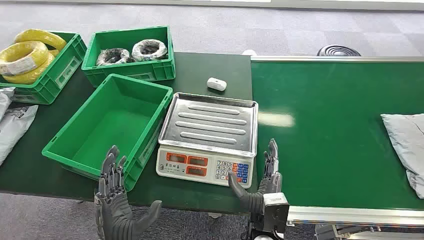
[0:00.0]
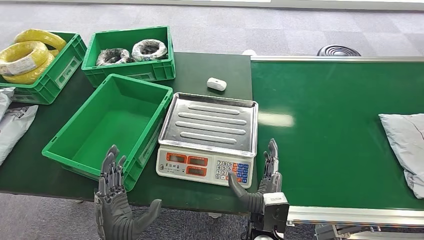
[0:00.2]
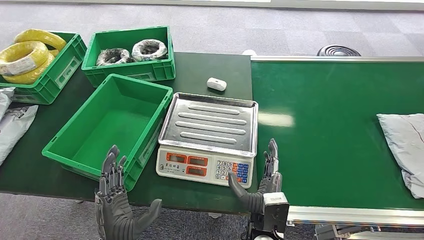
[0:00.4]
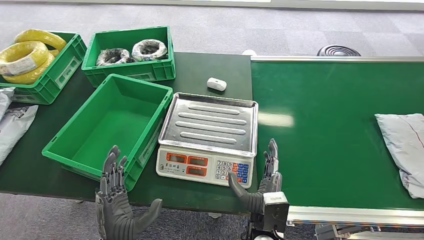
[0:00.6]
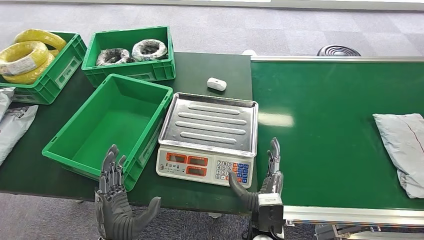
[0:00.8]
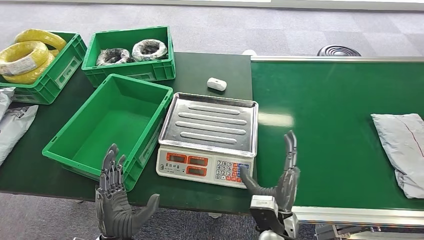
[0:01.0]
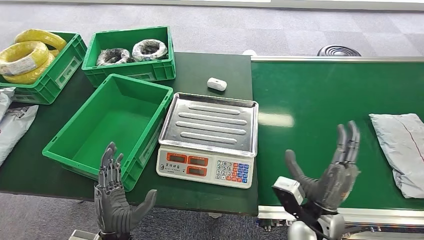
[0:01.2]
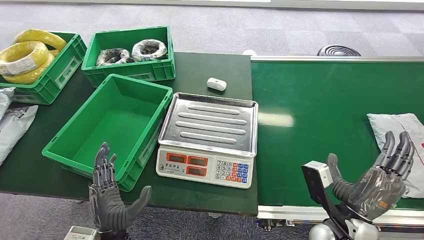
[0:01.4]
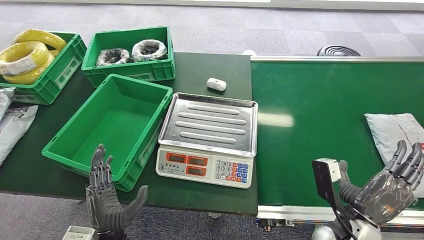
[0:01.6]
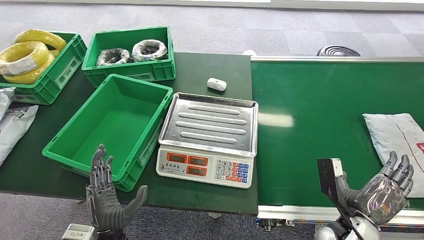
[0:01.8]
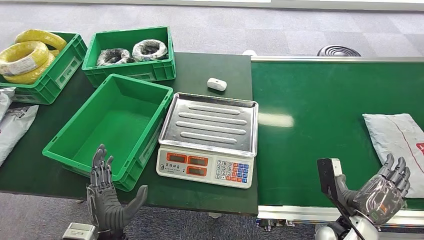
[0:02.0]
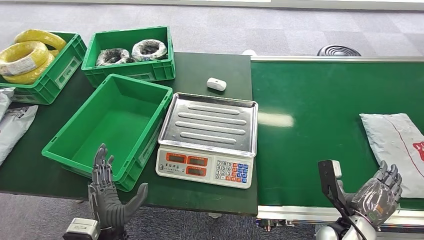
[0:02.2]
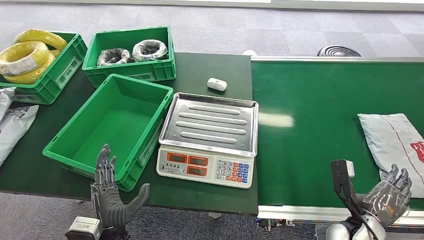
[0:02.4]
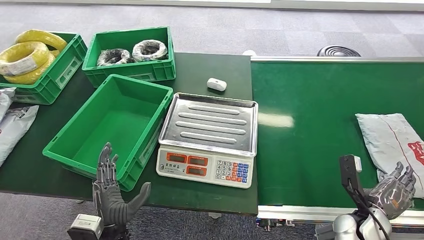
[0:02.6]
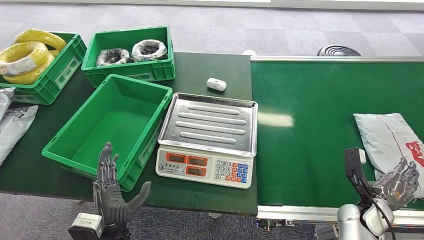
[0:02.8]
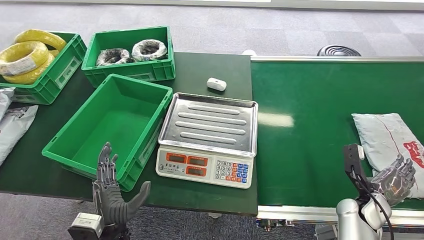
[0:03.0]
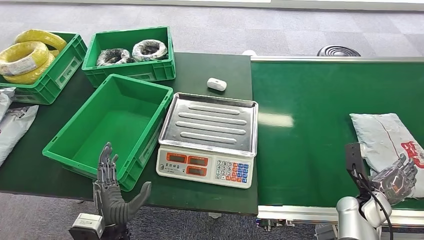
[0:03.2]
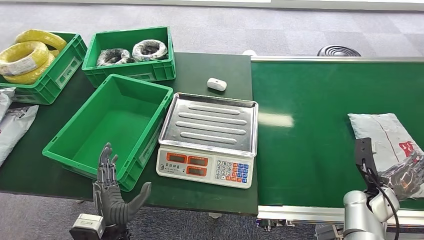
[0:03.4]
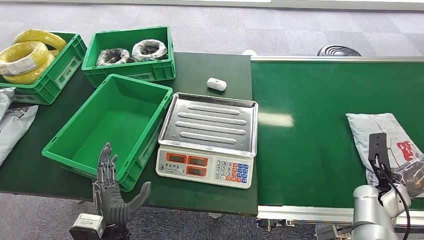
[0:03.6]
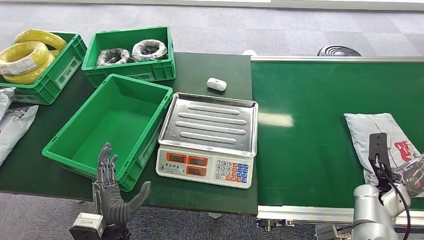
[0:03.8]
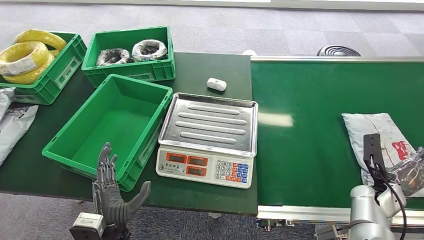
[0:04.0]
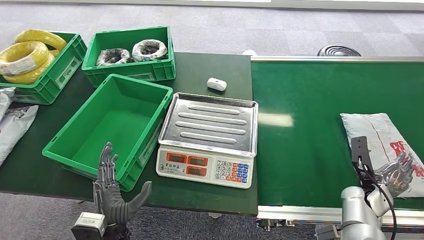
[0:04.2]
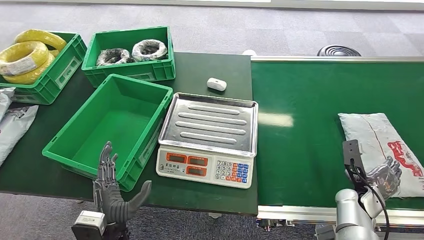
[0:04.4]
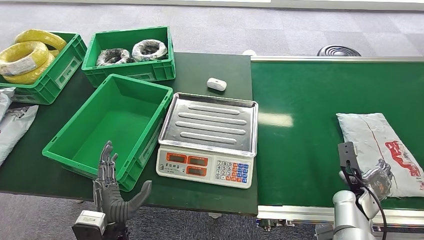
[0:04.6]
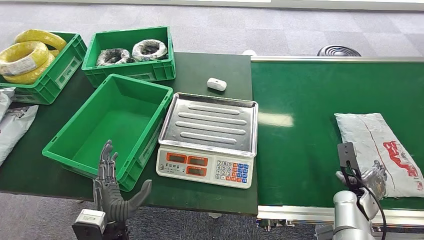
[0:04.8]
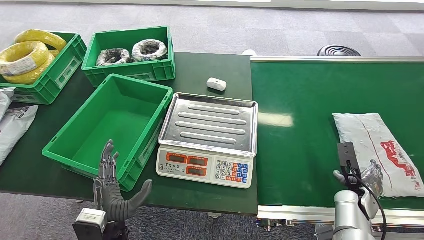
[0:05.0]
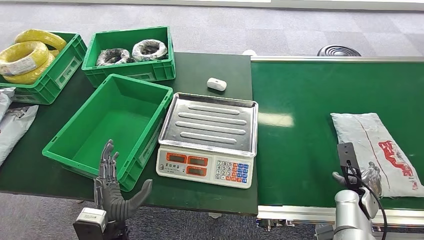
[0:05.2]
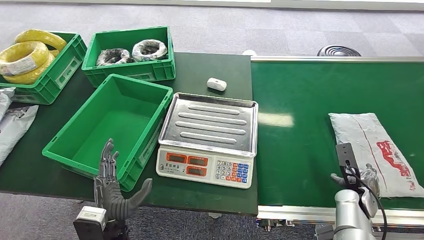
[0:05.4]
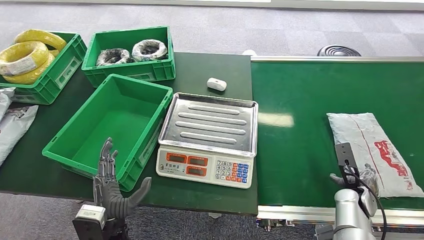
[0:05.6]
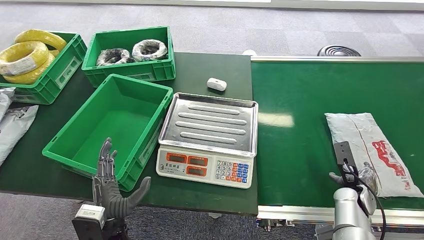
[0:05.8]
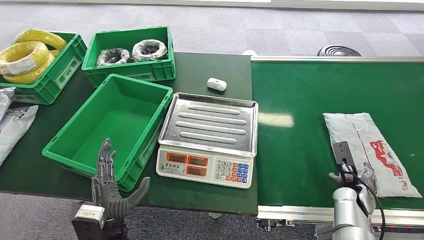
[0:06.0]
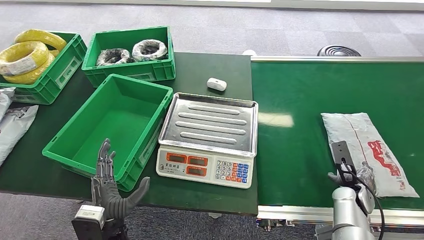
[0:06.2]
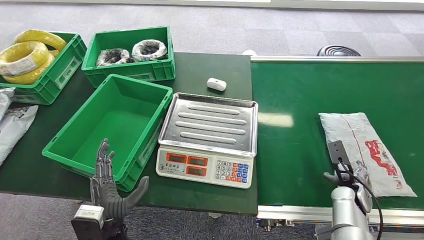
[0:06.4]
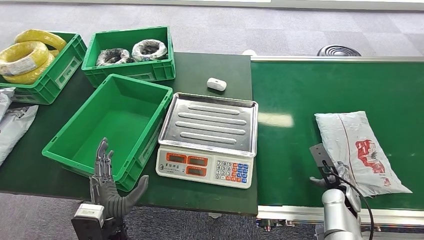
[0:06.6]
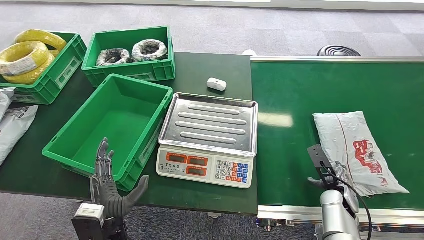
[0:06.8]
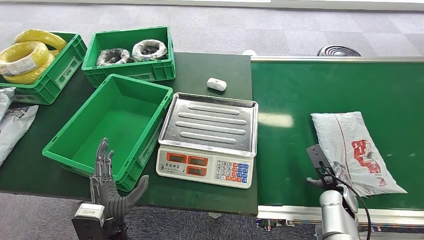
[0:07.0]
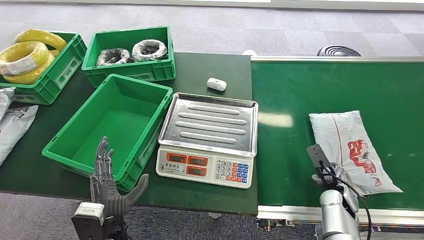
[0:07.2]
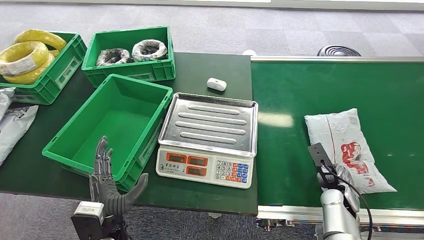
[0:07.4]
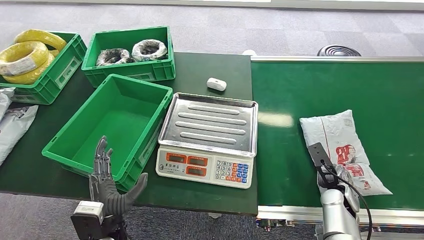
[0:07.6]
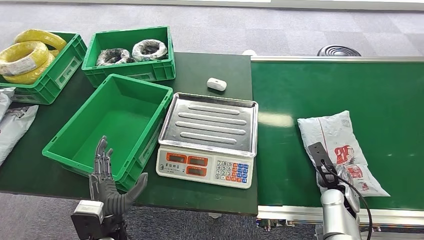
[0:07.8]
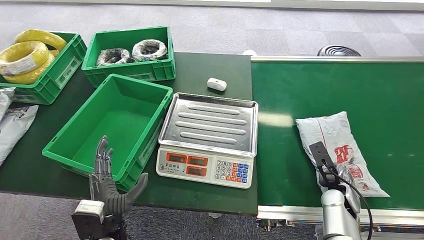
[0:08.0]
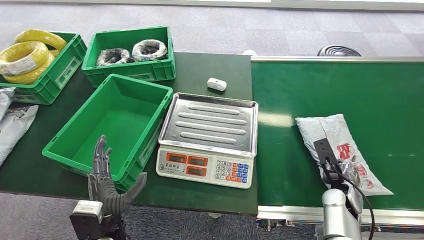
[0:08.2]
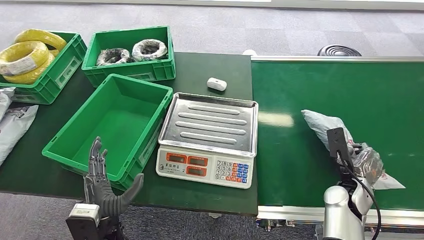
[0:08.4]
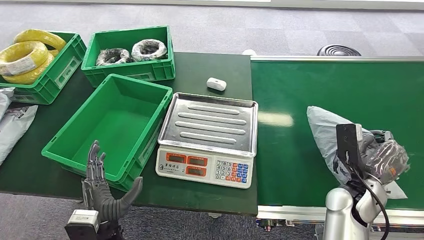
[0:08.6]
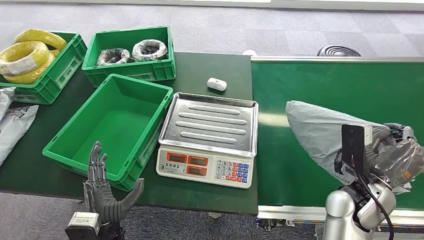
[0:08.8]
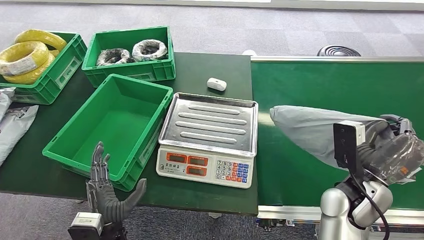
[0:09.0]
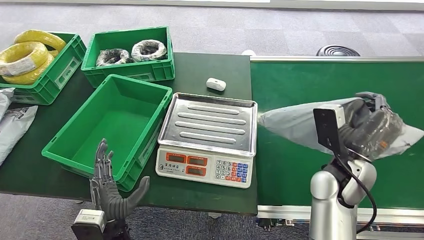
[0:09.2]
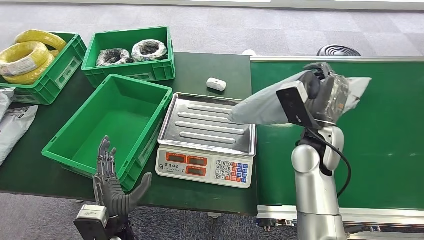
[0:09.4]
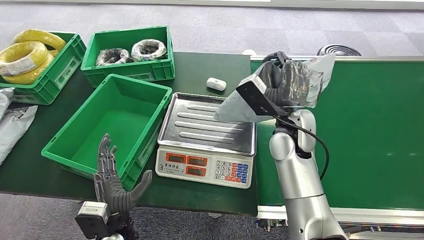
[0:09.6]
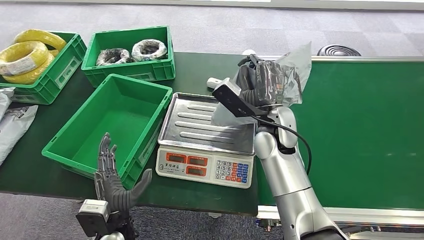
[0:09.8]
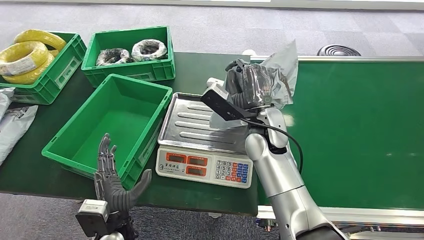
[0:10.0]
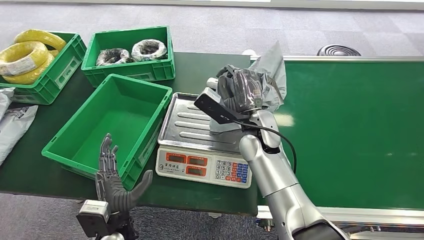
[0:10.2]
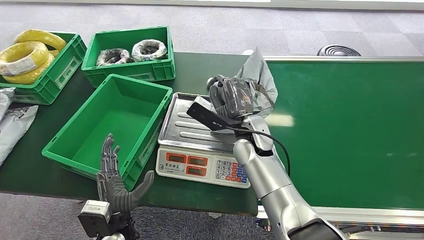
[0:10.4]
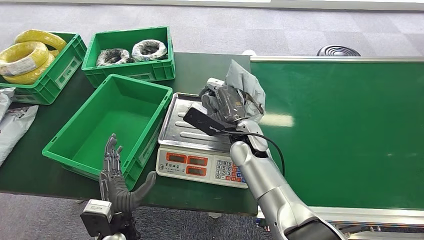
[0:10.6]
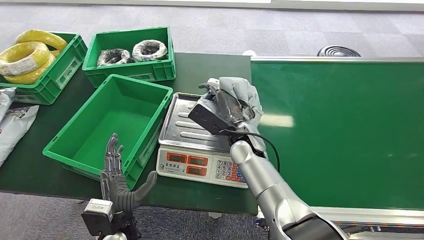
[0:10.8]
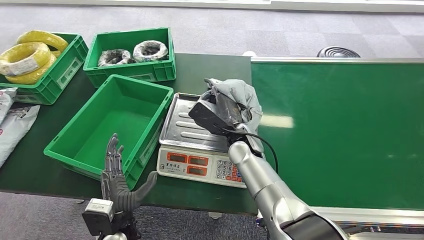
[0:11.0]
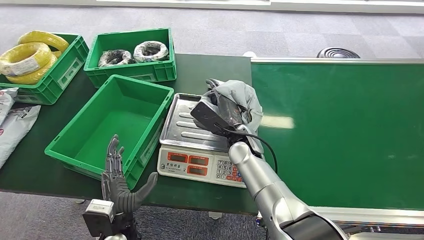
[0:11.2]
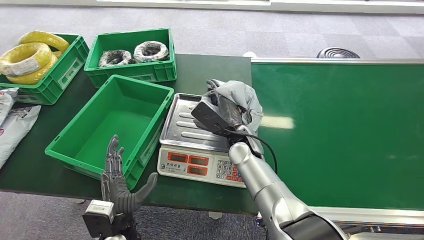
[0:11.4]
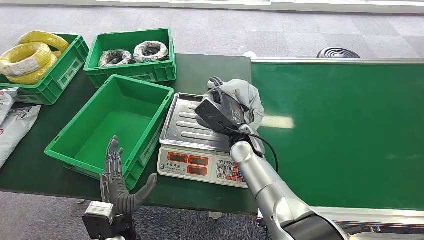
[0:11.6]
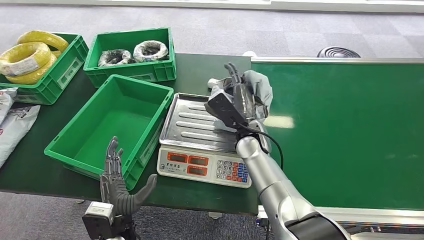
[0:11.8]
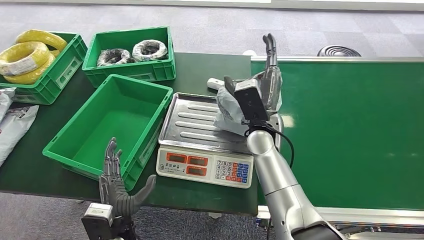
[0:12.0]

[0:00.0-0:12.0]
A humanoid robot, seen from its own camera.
Step, 0:00.0 to 0:08.8: Pick up the package from the conveyor belt.
0:01.6 to 0:03.0: The right hand shifts approximately 15 cm to the right, downward and forward.
0:03.0 to 0:04.4: There are only small adjustments of the hands.
0:04.4 to 0:06.0: The hands stay close to where they were, moving slightly.
0:06.0 to 0:07.6: The hands make only small movements.
0:07.6 to 0:09.0: The right hand heads upward, covering roughly 15 cm.

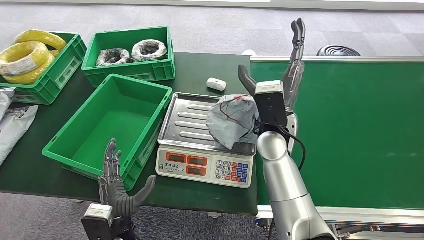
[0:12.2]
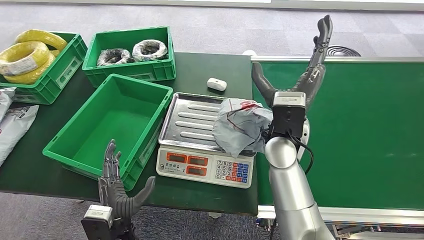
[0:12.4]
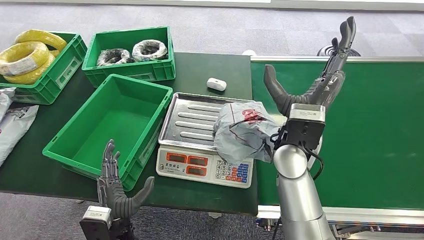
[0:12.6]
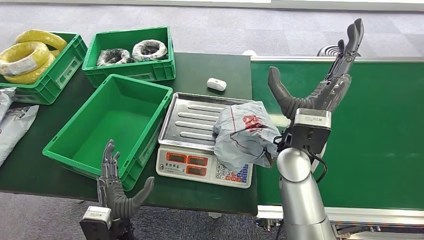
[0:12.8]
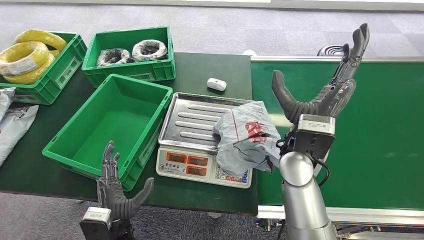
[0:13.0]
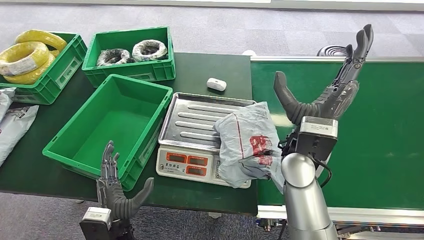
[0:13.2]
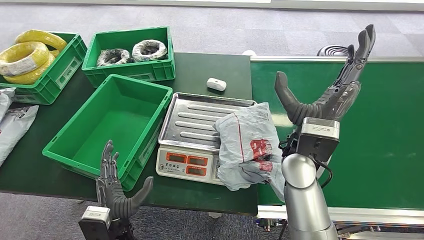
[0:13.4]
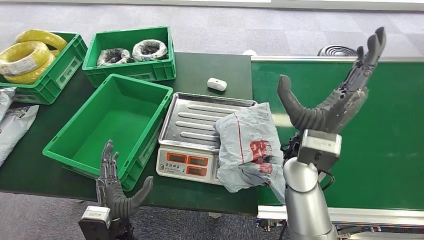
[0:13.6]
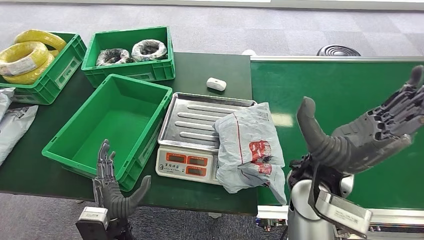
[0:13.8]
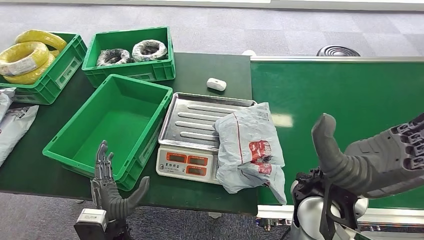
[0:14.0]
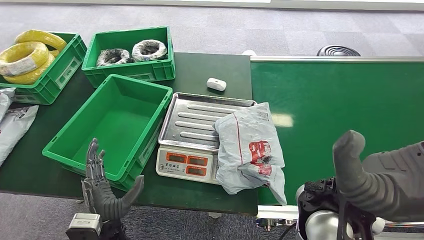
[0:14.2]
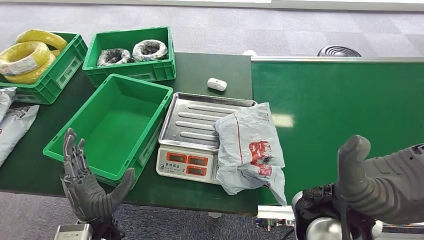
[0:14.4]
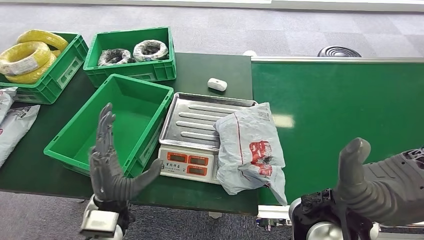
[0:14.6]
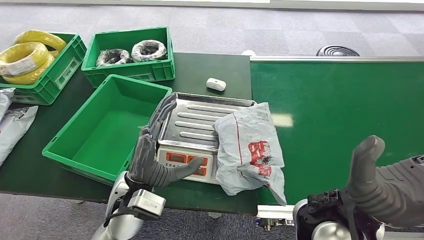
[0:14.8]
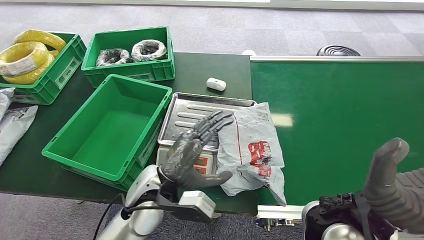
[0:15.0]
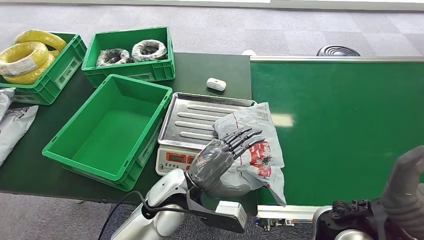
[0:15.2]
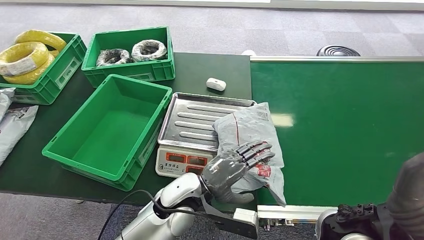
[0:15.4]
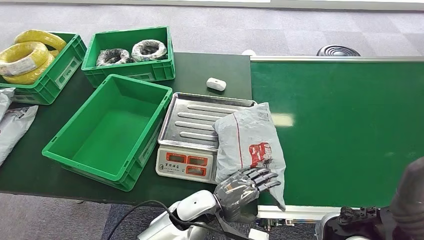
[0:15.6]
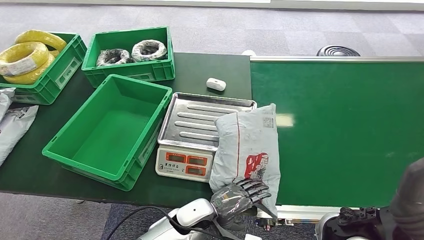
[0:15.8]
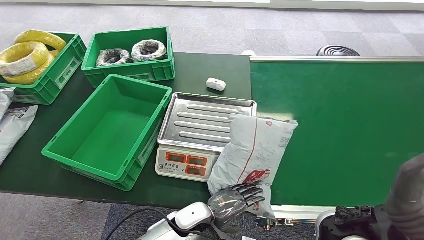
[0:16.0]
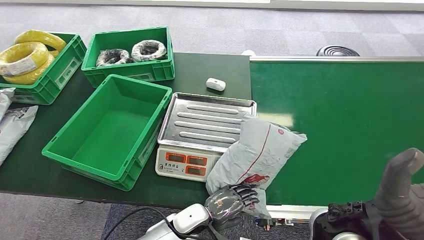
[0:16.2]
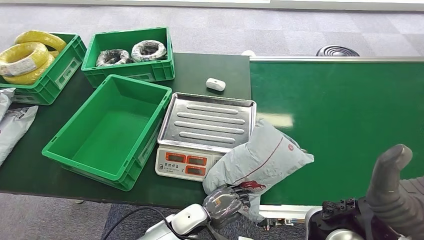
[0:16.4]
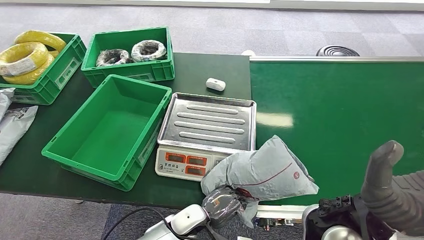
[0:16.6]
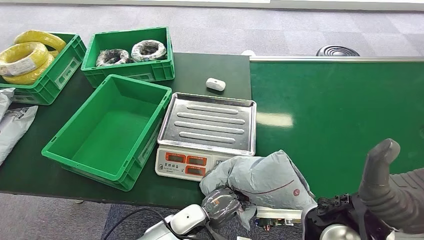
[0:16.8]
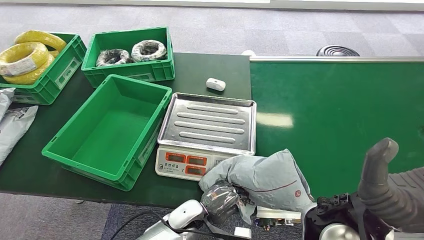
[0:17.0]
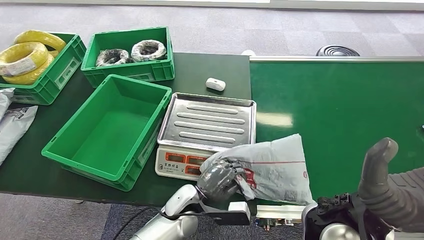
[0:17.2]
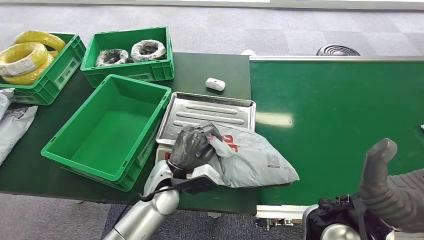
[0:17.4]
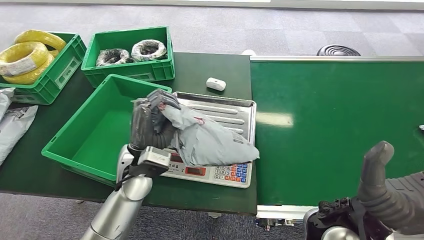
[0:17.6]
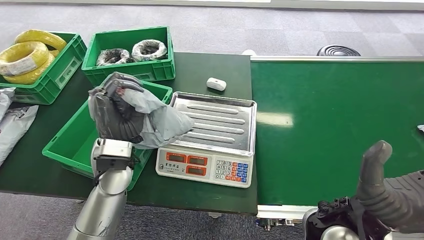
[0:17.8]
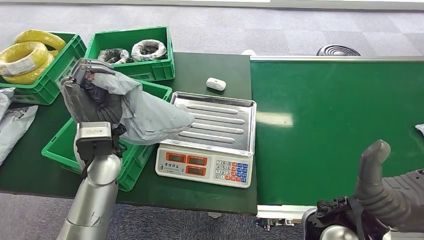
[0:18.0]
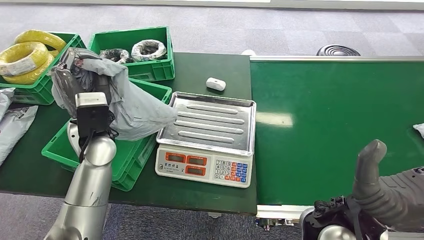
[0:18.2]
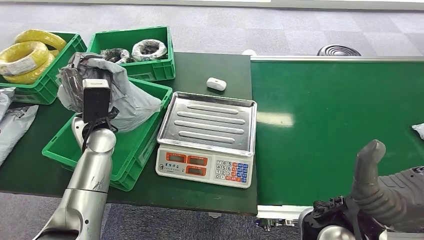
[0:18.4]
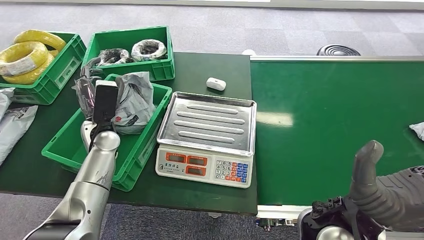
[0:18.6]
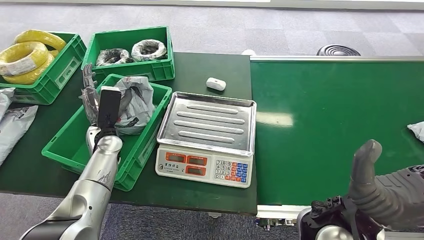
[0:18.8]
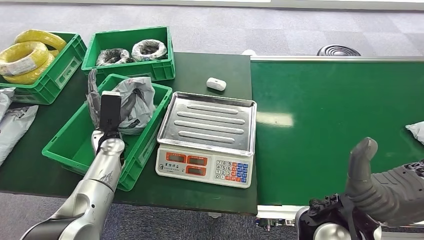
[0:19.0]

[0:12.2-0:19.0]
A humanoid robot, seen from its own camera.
Step, 0:14.2 to 0:17.8: Pick up the package from the inbound machine.
Step, 0:18.0 to 0:19.0: Place the package into the parcel locker.
0:12.2 to 0:13.6: The right hand goes some 5 cm backward.
0:15.0 to 0:16.2: The left hand is displaced downward by roughly 20 cm.
0:16.2 to 0:17.6: The left hand shifts about 20 cm upward and to the left.
0:17.6 to 0:19.0: The left hand is displaced to the left, forward and downward by approximately 15 cm.
